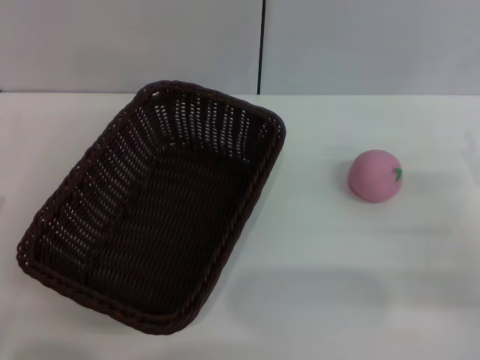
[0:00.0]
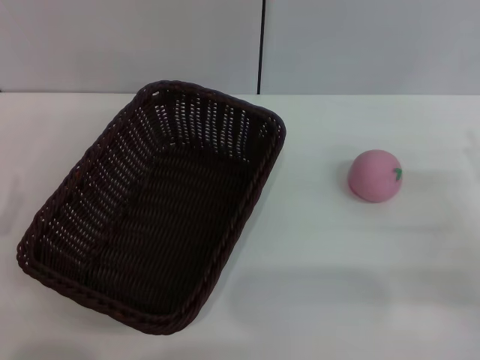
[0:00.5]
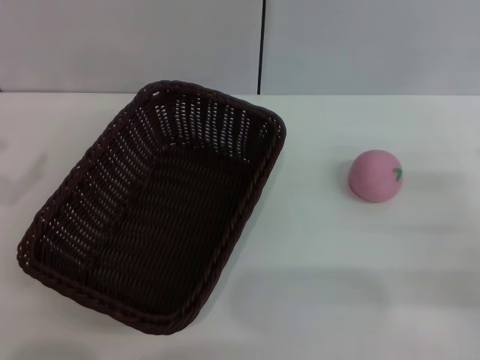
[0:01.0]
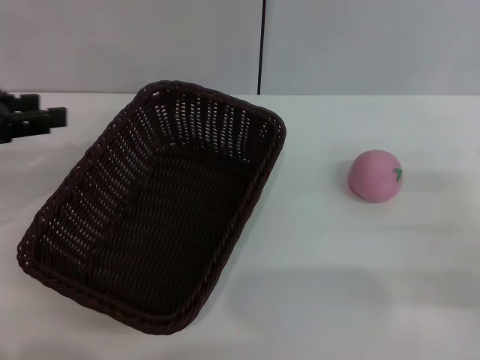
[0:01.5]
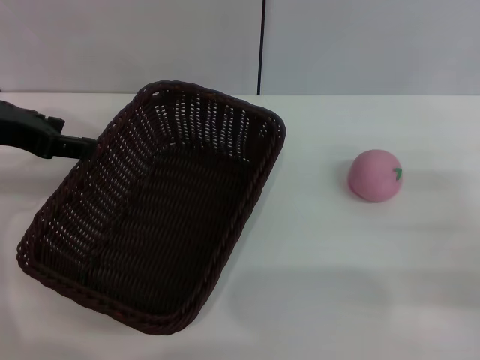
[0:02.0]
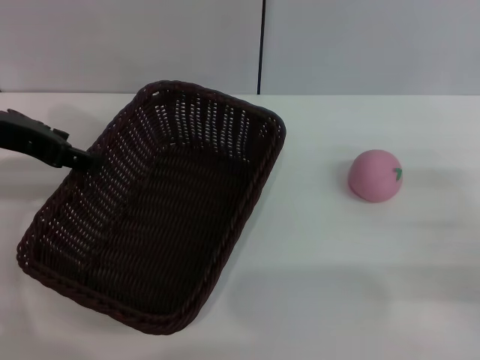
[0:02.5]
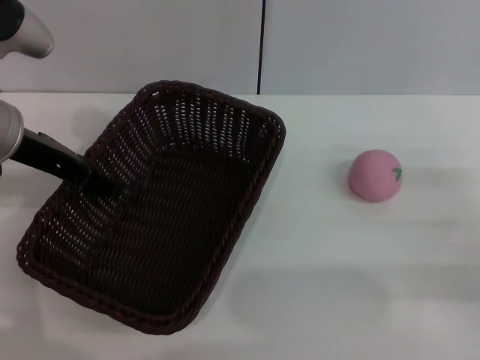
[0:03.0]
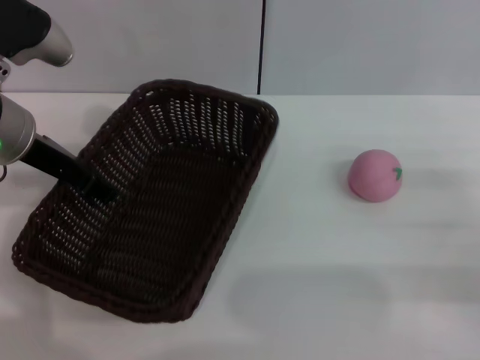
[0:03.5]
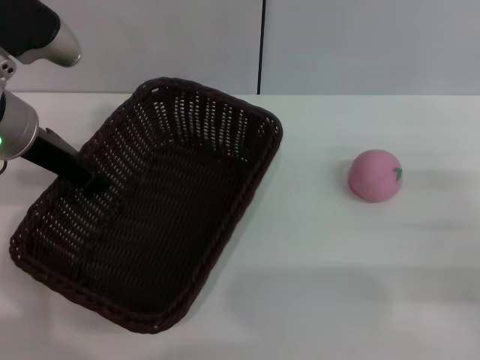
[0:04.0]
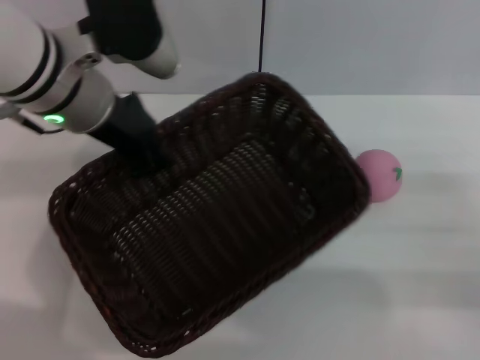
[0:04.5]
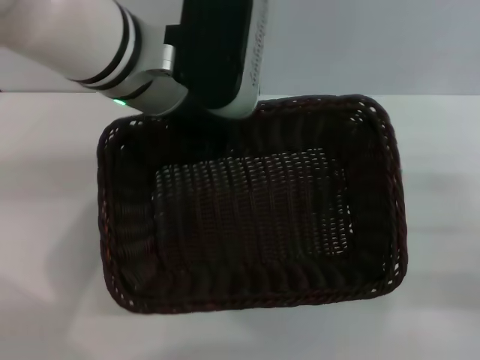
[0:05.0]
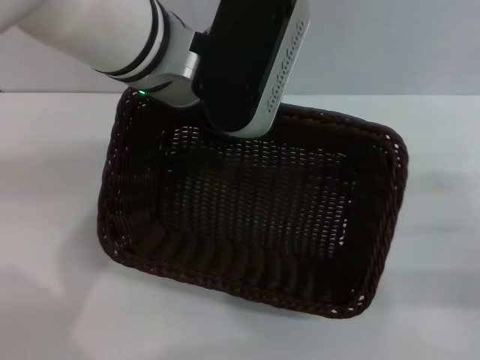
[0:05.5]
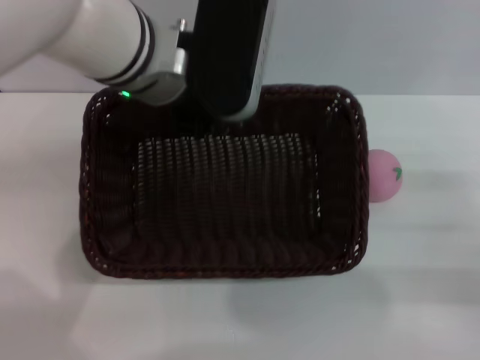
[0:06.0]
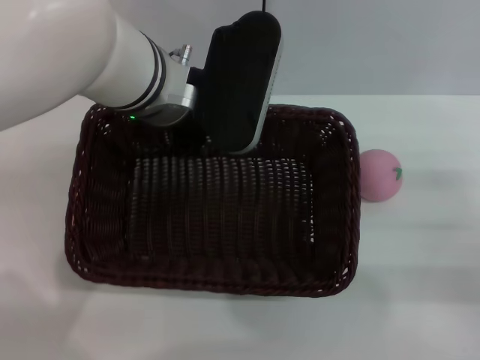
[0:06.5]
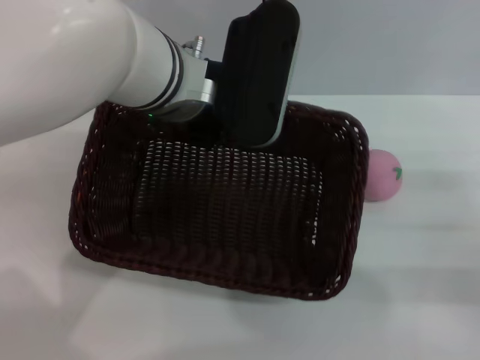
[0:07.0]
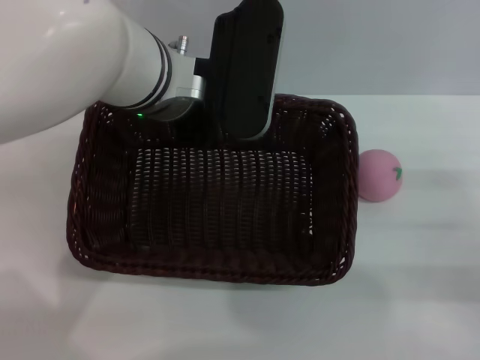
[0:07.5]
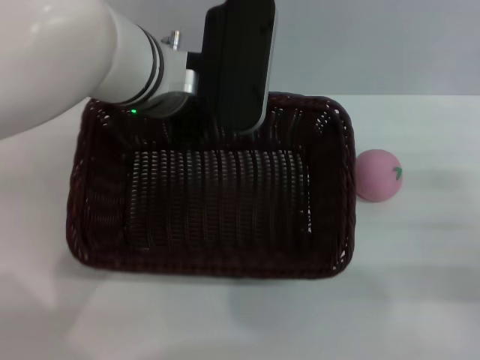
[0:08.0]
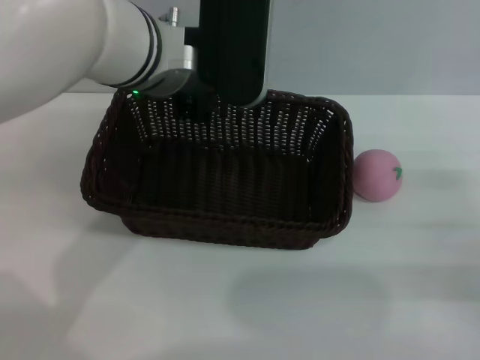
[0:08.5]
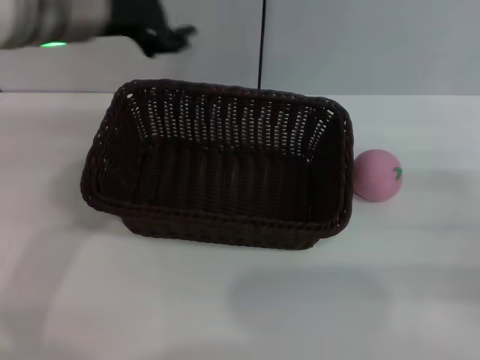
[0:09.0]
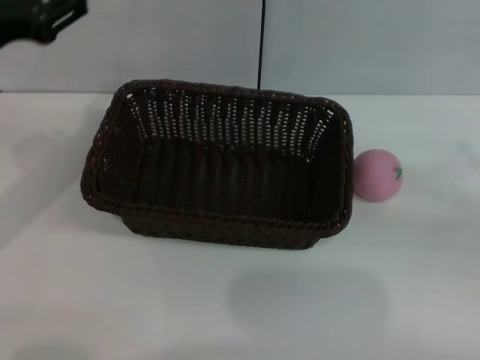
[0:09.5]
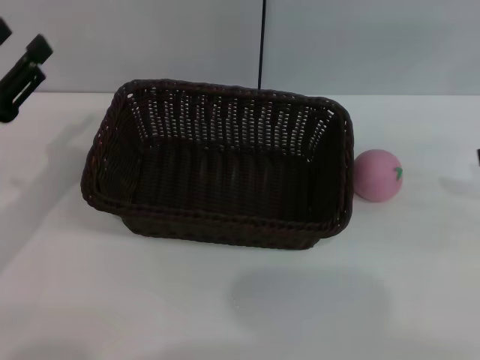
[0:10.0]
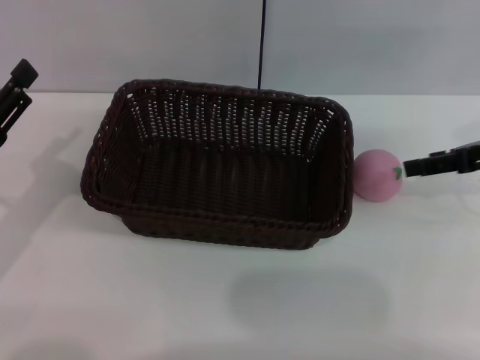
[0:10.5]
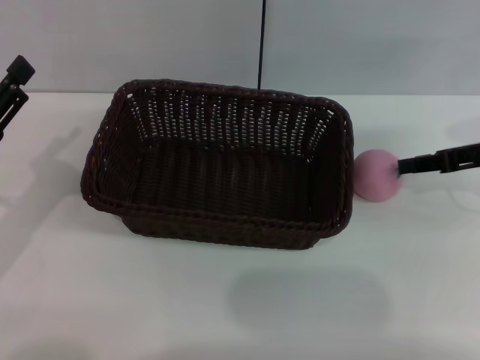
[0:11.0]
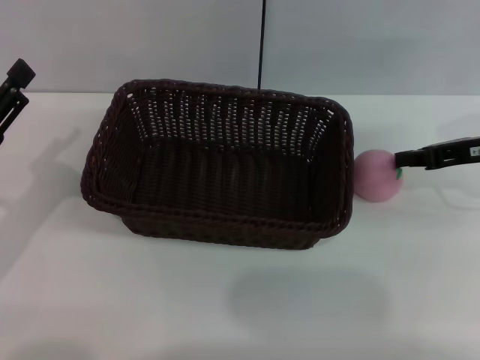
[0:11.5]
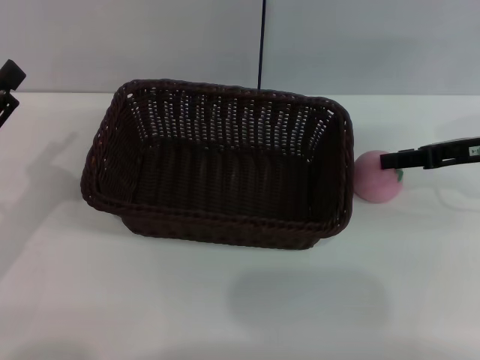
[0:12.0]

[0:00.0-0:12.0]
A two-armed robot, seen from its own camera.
Step, 0:00.0 to 0:04.5: Pick up the dark basket with the left gripper.
0:00.0 to 0:02.0: The left gripper heads upward and forward, covering about 25 cm.
0:02.0 to 0:04.0: The left gripper travels to the right by about 5 cm, and closes its fingers.
0:04.0 to 0:06.0: The left gripper is displaced to the right by some 15 cm.
0:06.0 to 0:08.0: The left gripper opens.
0:08.0 to 0:10.0: The right gripper heads upward and forward, covering some 15 cm. The left gripper goes about 25 cm to the left and backward.
0:10.0 to 0:12.0: The right gripper heads downward and to the left, covering approximately 10 cm, and closes.

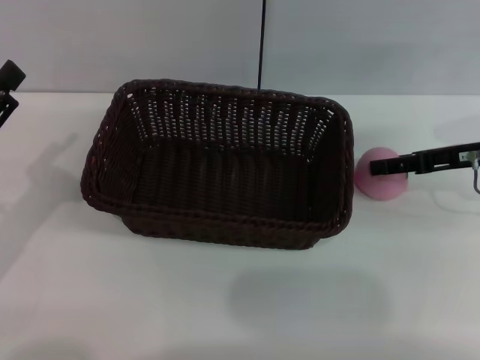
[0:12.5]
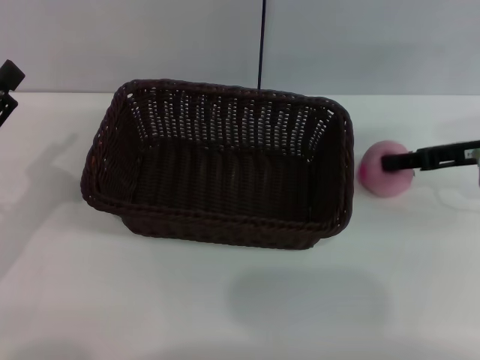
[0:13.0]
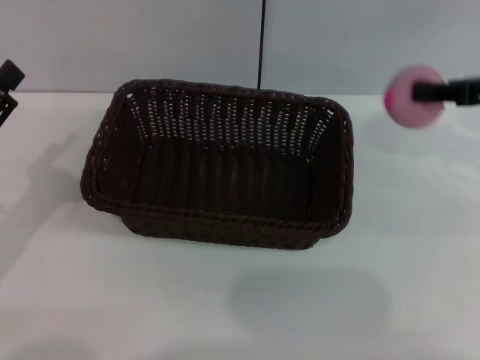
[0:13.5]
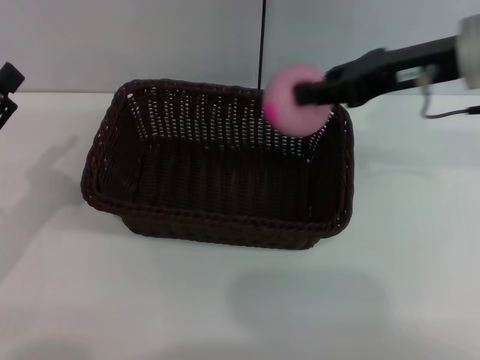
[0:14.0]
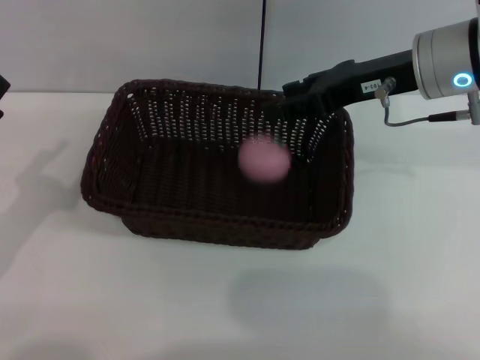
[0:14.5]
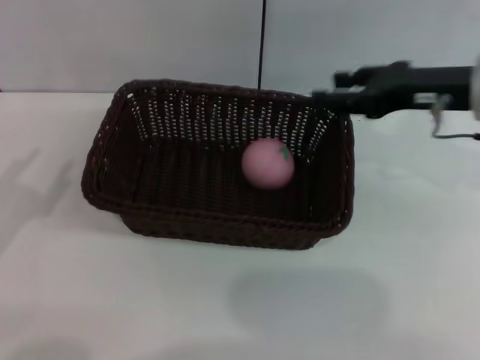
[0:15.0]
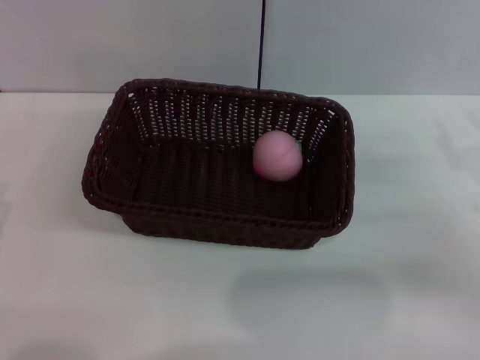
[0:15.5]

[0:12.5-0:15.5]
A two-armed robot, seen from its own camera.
0:12.5 to 0:14.0: The right gripper heads upward and to the left, covering approximately 15 cm, and closes its fingers.
0:14.0 to 0:15.5: The left gripper moves backward and downward, approximately 10 cm; the right gripper heads downward, to the right and backward, covering approximately 20 cm, and opens.
